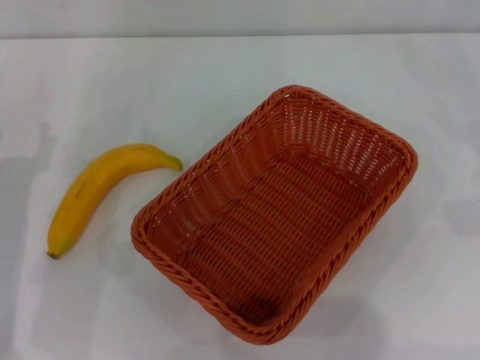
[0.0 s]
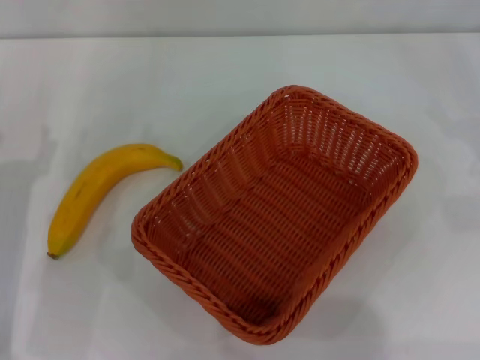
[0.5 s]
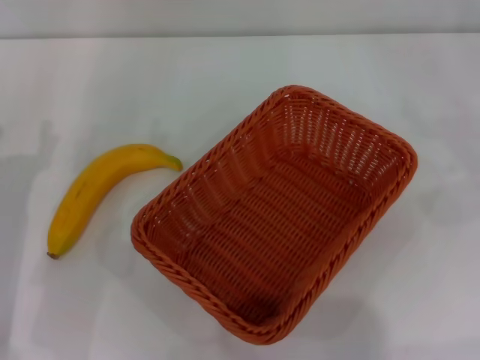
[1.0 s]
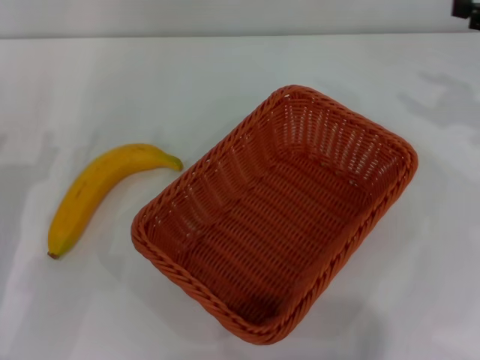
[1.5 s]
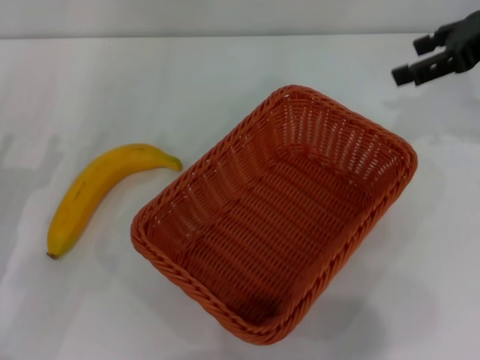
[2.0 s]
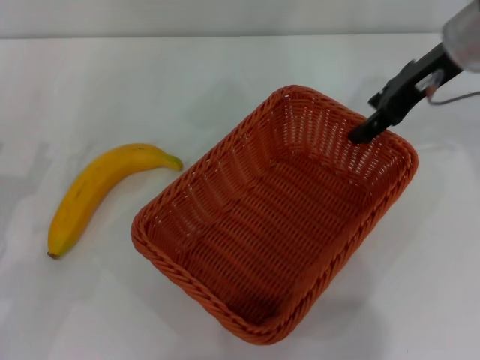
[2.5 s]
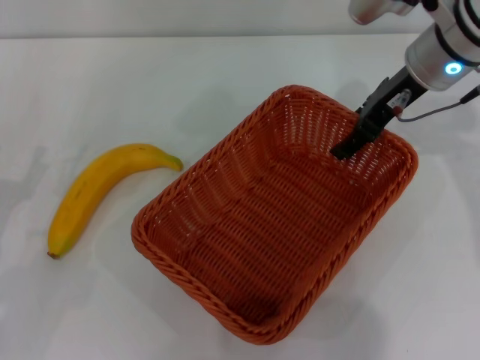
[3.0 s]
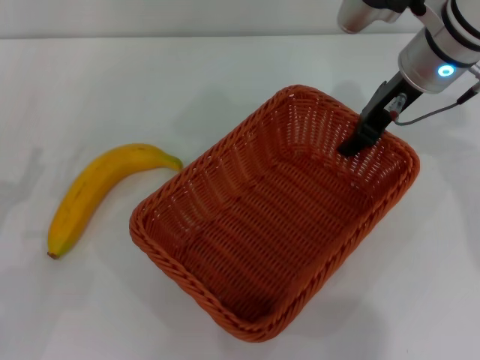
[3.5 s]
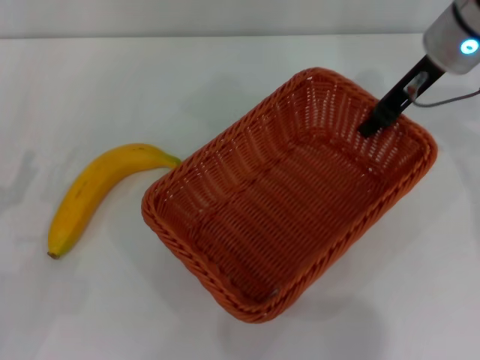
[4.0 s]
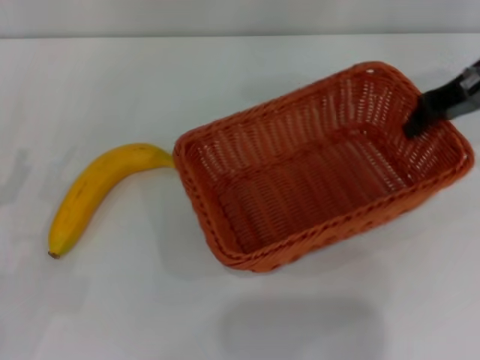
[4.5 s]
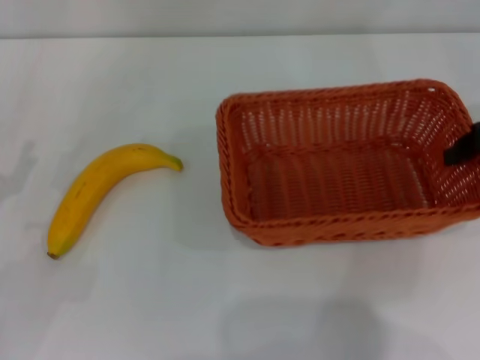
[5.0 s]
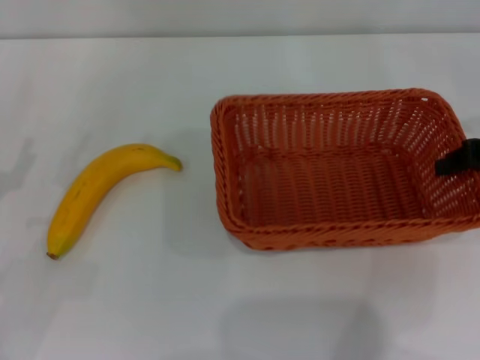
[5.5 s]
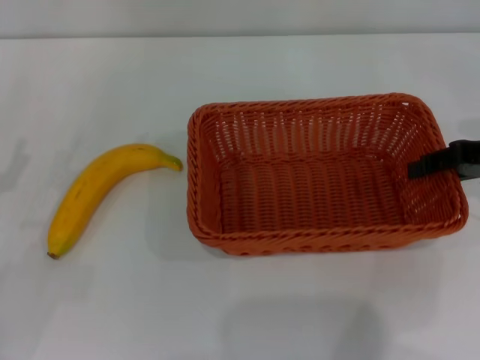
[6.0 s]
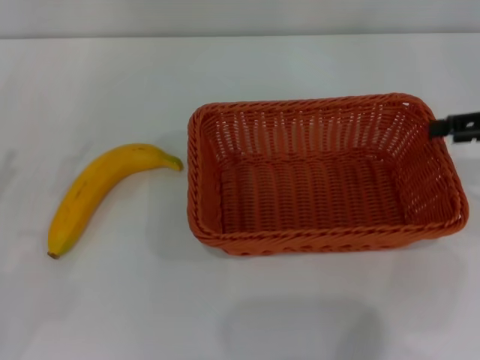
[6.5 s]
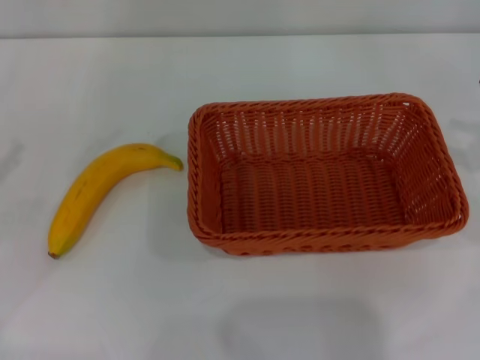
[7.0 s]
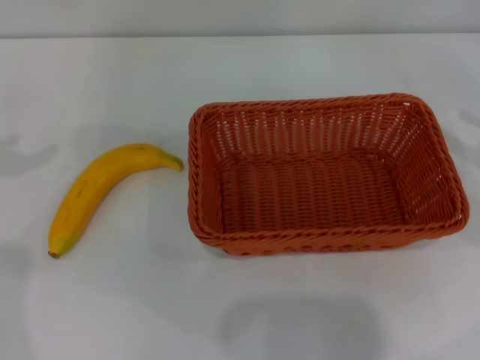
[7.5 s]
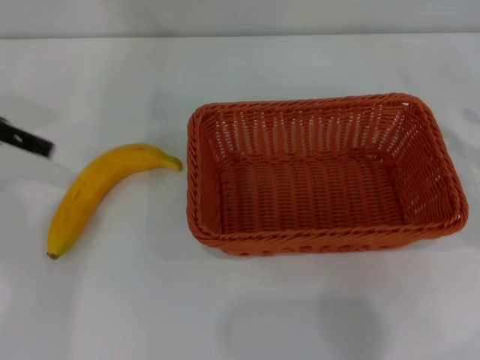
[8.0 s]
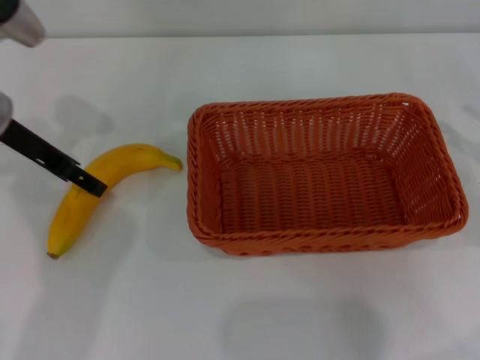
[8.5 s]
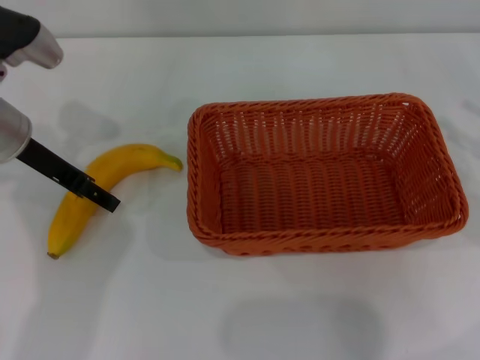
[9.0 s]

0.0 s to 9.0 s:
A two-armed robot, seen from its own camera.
Step, 0.0 to 4.0 s: Pick up the light basket with the right gripper.
Step, 4.5 to 6.5 s: Place the light basket in the center of view with the right gripper.
0.0 to 2.0 s: The right gripper shifts roughly 25 cm to the left, upward and forward.
2.0 to 4.5 s: The right gripper travels to the left and back again, approximately 15 cm each way, and closes.
4.5 to 7.0 s: The left gripper heads upward and to the left, covering roughly 10 cm. The right gripper is displaced to the right and backward by about 15 cm, and opens its fingers.
7.0 to 9.0 s: The left gripper heads to the right and forward, covering approximately 20 cm.

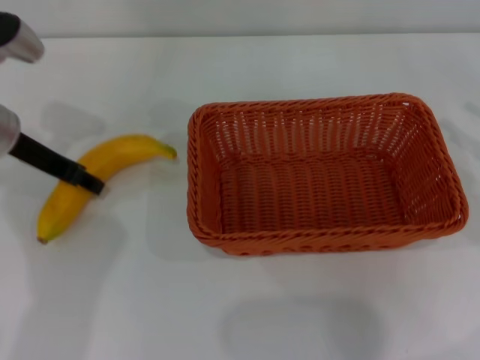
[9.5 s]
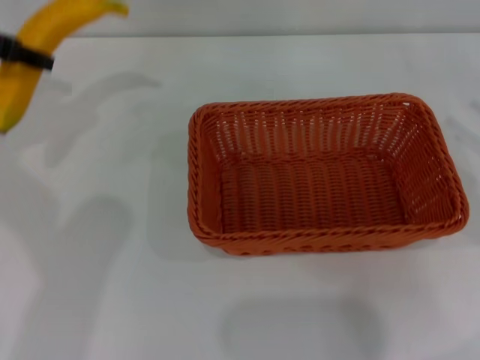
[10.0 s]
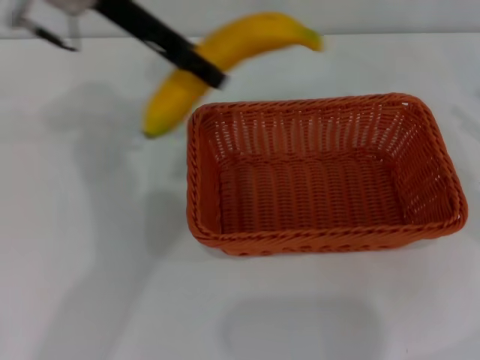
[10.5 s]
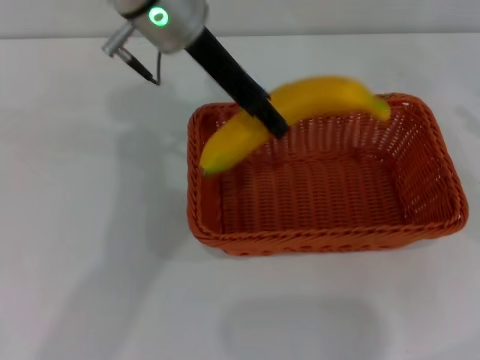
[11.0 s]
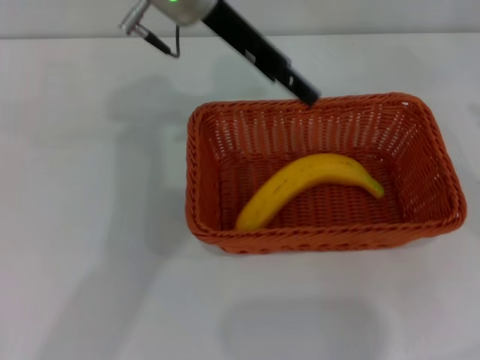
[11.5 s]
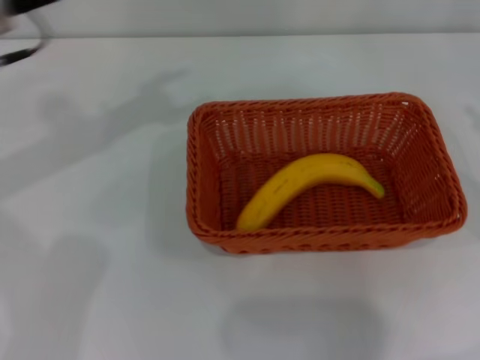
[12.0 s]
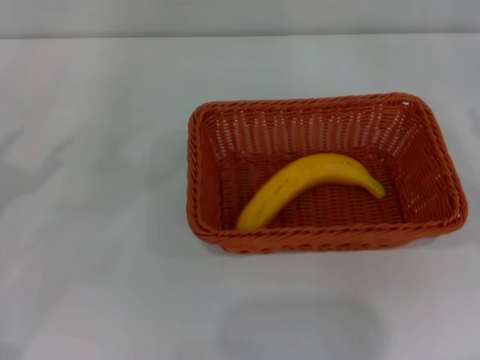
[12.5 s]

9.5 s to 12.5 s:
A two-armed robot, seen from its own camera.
Step, 10.0 to 11.0 s: Place the banana into the light basket with the left gripper.
9.5 to 11.0 s: The left gripper shifts about 20 cm to the right and upward.
11.0 to 12.5 s: The right gripper heads downward, covering approximately 5 cm; the left gripper goes roughly 35 cm to the left, backward and downward, and opens its fingers.
